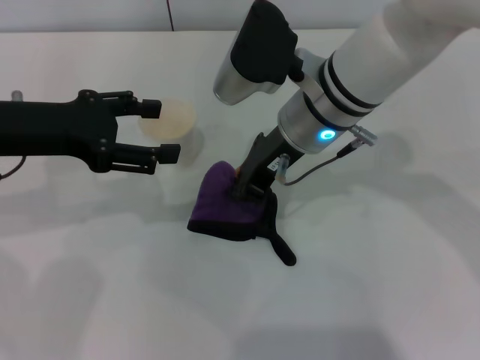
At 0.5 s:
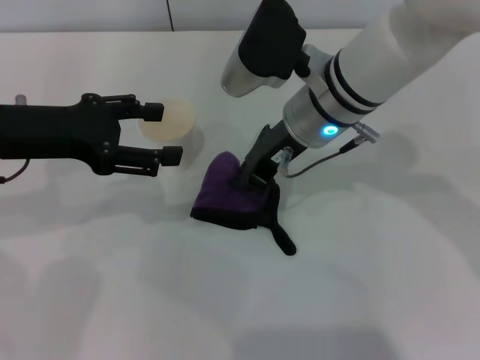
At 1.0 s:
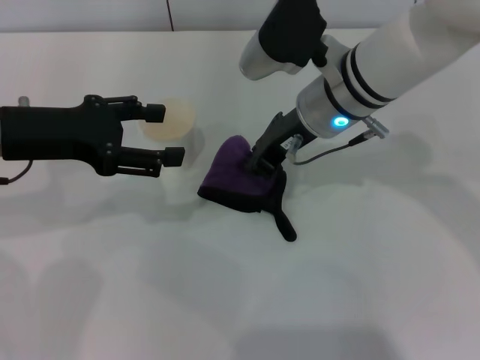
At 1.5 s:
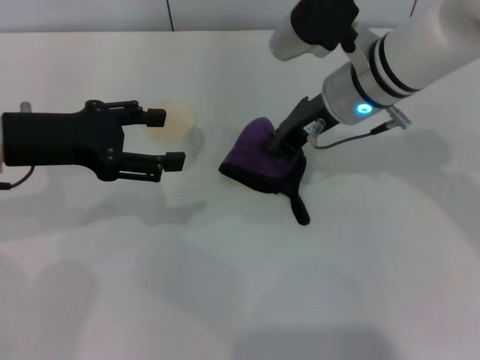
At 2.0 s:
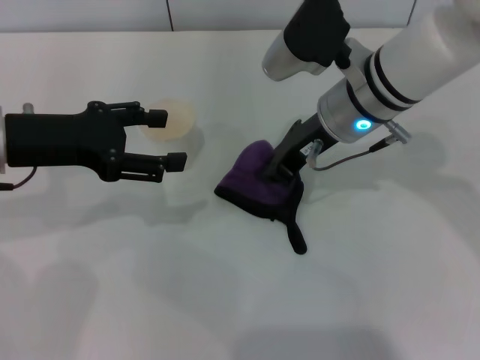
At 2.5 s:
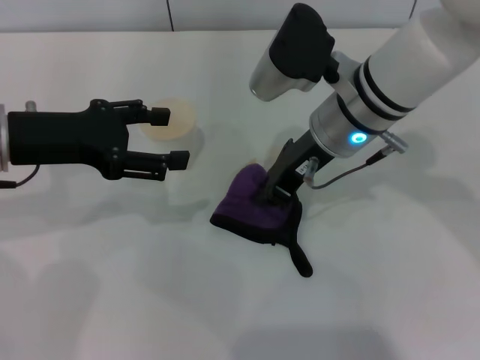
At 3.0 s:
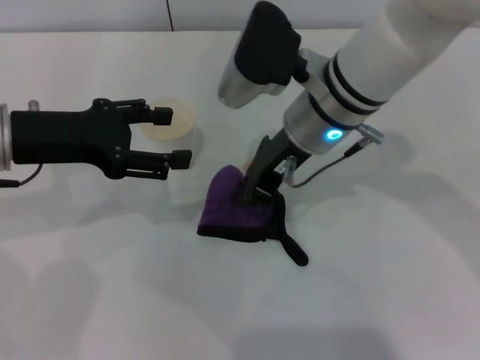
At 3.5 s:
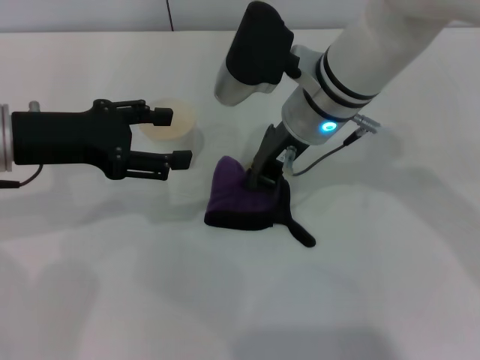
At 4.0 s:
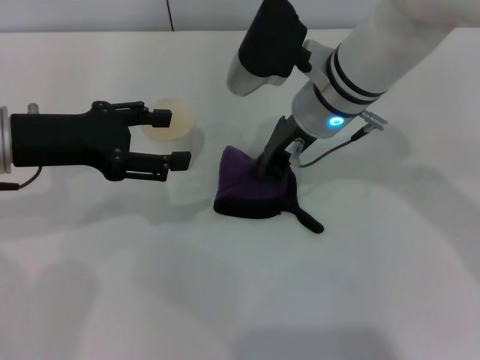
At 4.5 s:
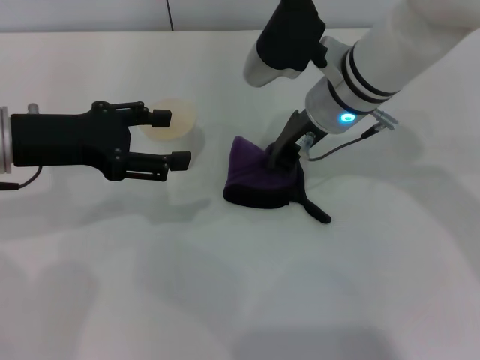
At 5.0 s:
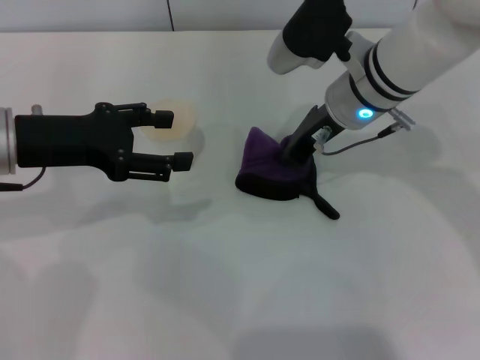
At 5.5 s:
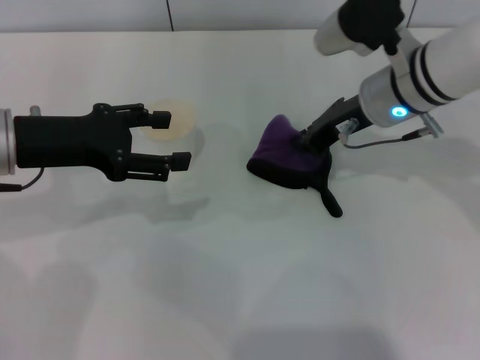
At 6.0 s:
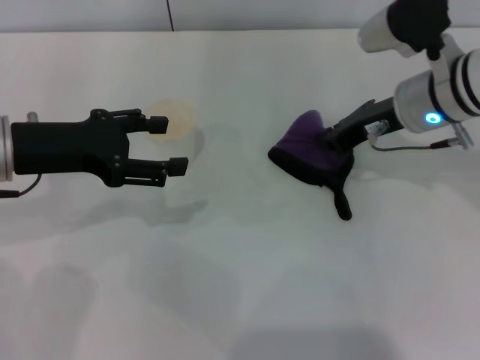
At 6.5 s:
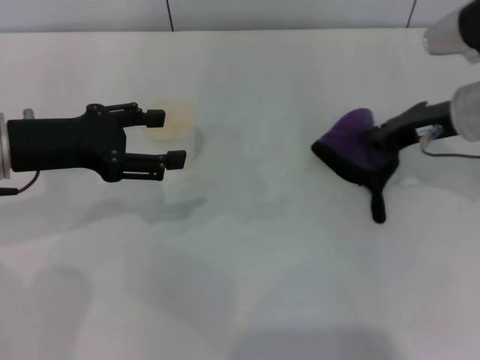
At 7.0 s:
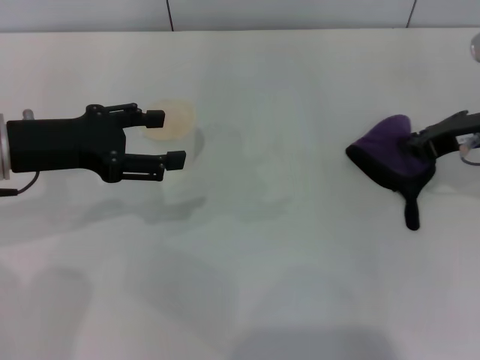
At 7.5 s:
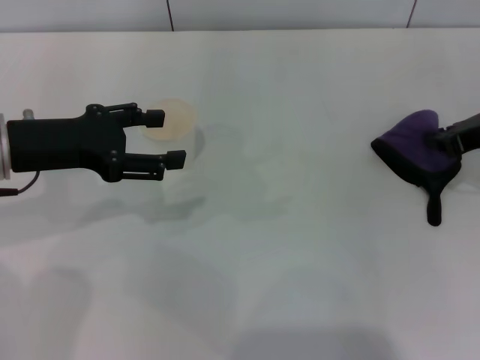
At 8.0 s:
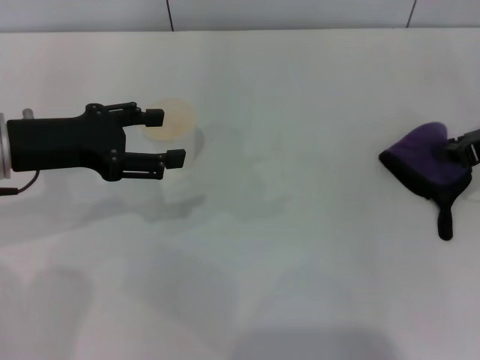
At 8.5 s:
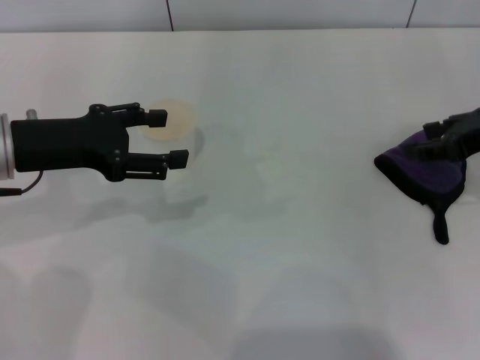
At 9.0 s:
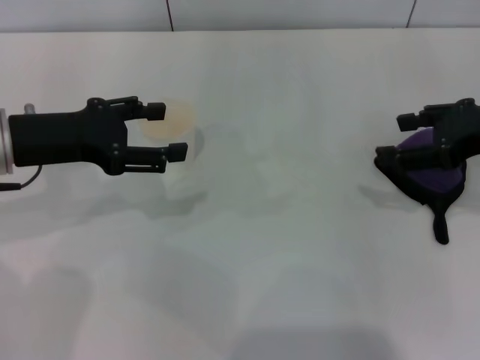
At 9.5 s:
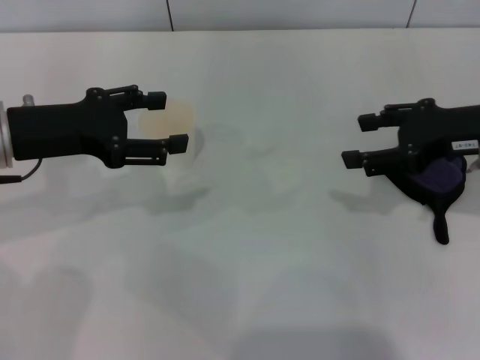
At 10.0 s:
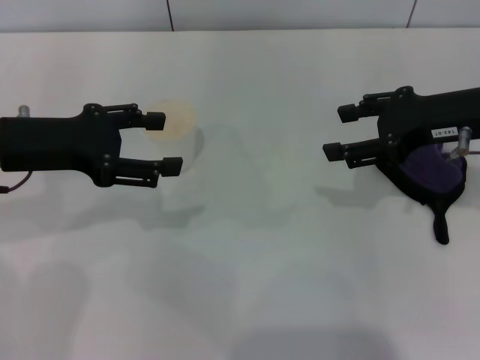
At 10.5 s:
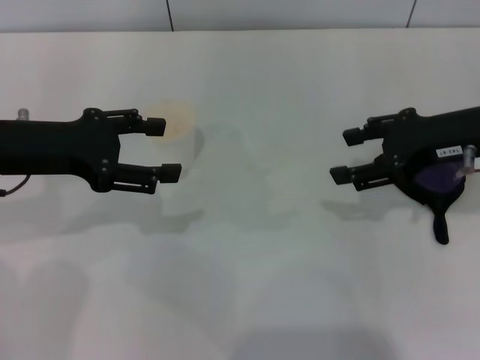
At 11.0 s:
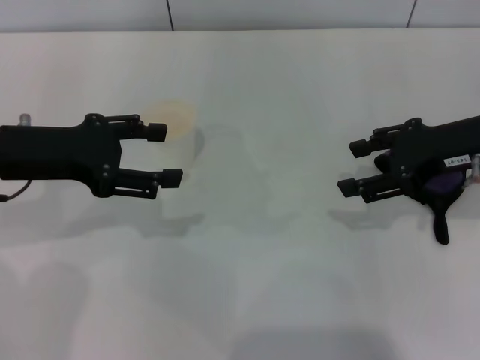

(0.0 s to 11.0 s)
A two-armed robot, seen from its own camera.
Step, 0.0 s - 4.5 s: Wipe the stains off the table with the right gripper.
Step, 5.0 s - 8.5 s: Place the rag on the table with the right gripper.
2.0 s - 3.5 s: The grippers make only small movements.
3.5 s - 5.5 s: The right gripper goes roughly 10 cm to the right.
5.5 s - 7.5 s: The right gripper moves to the right, roughly 15 cm.
7.5 s - 9.0 s: The right gripper shifts by about 5 cm, and opens its fingers.
9.0 s - 11.0 s: The grippers stay close to where they were, moving slightly.

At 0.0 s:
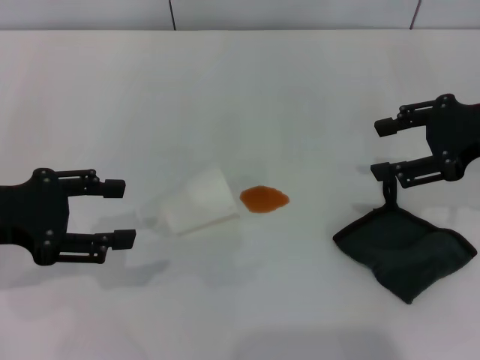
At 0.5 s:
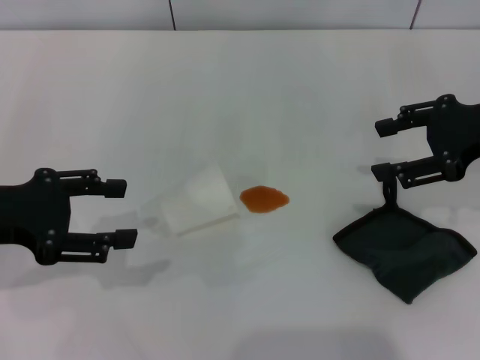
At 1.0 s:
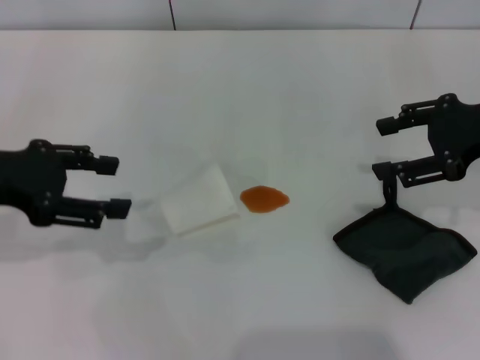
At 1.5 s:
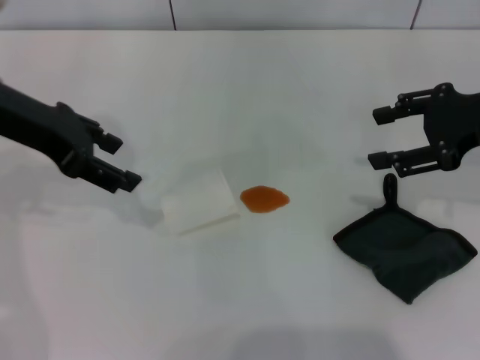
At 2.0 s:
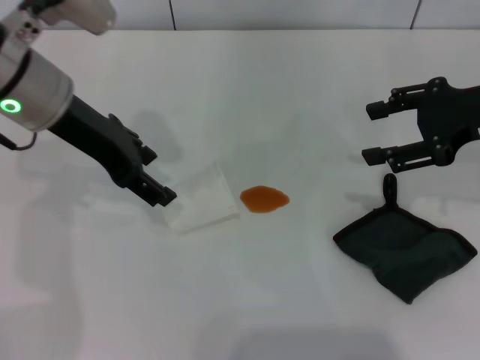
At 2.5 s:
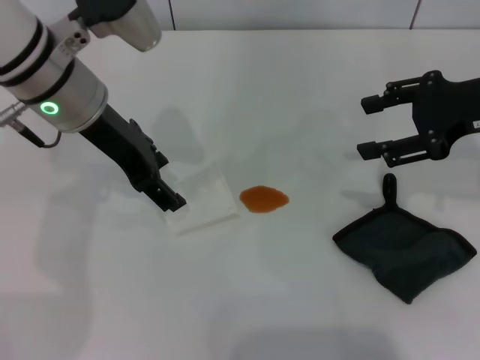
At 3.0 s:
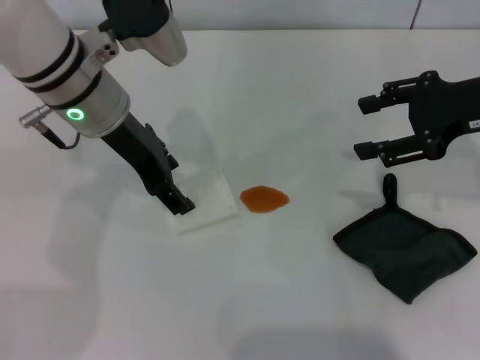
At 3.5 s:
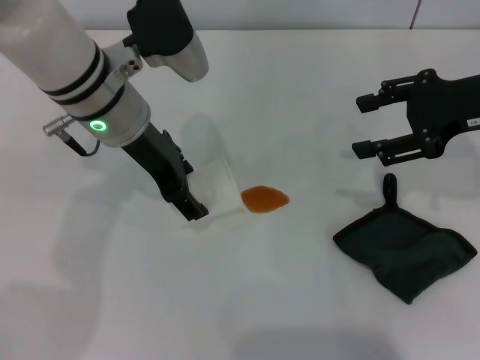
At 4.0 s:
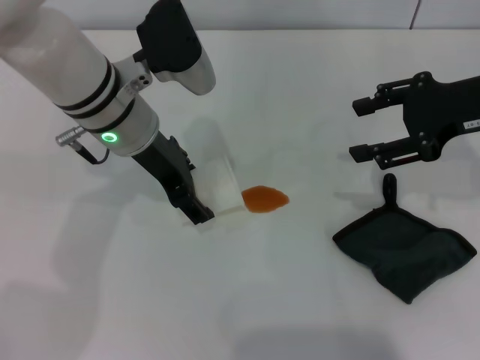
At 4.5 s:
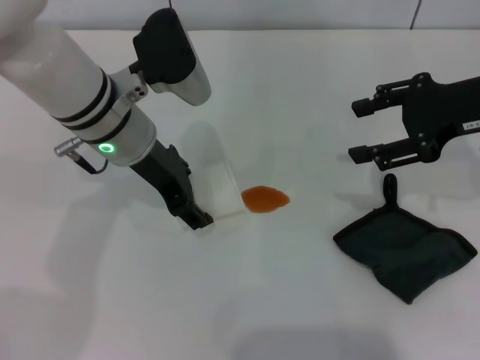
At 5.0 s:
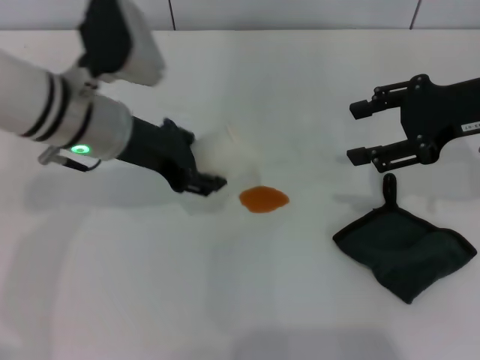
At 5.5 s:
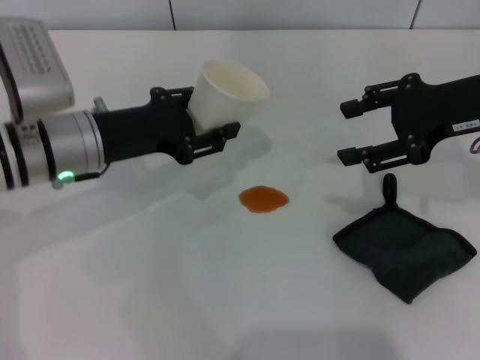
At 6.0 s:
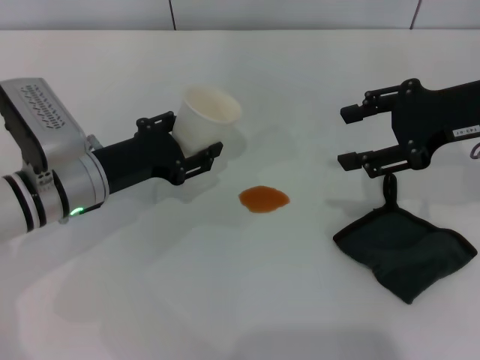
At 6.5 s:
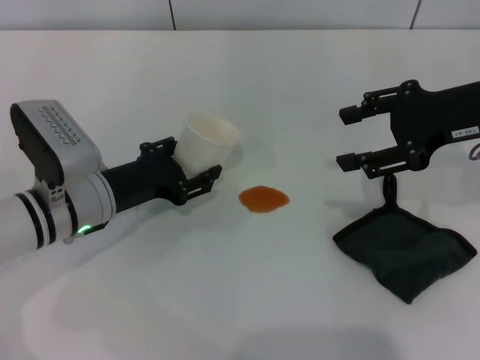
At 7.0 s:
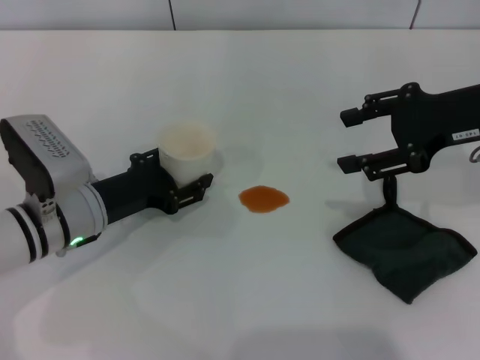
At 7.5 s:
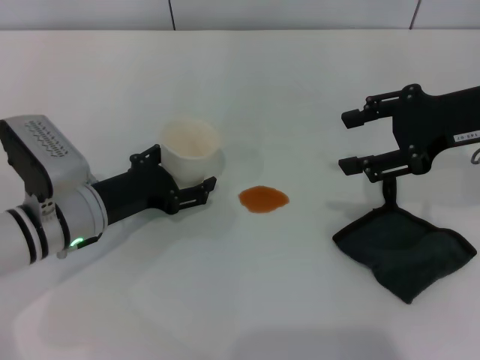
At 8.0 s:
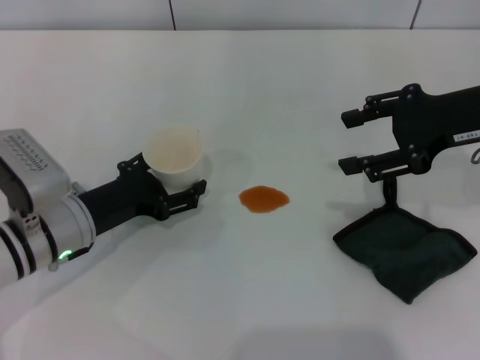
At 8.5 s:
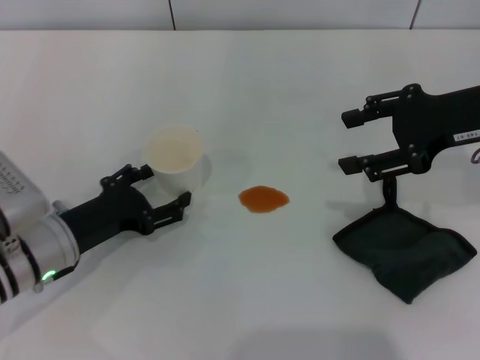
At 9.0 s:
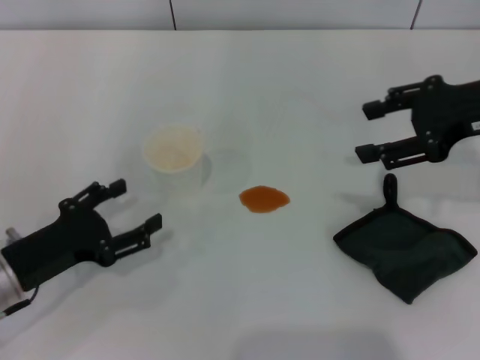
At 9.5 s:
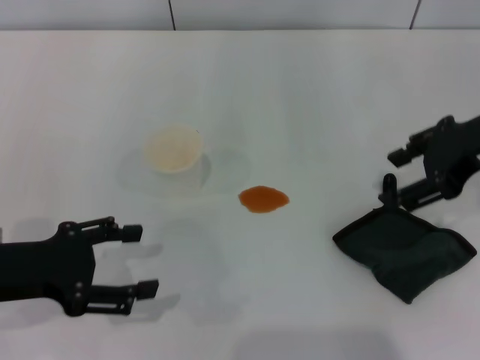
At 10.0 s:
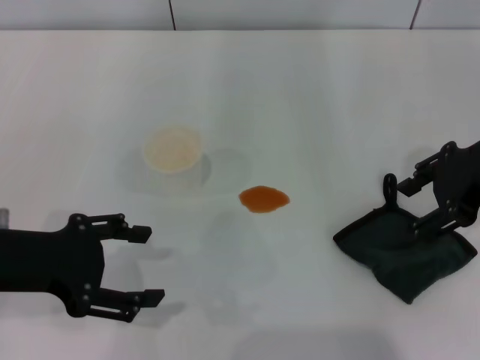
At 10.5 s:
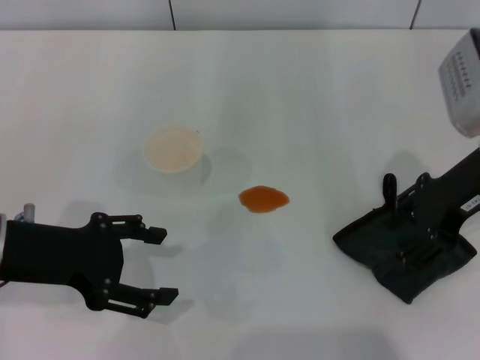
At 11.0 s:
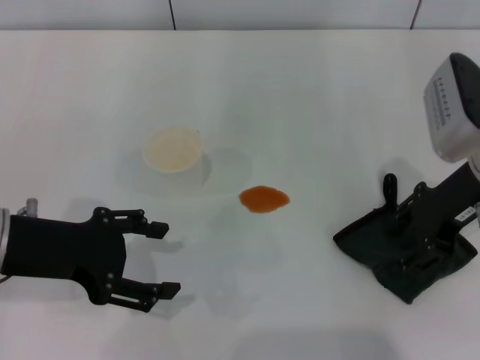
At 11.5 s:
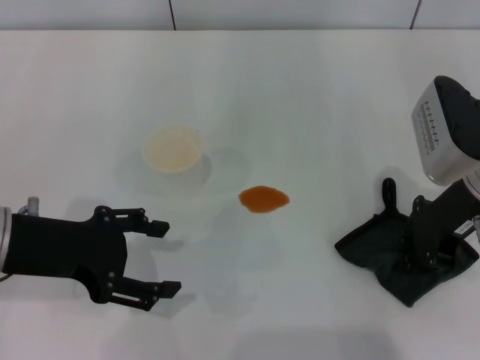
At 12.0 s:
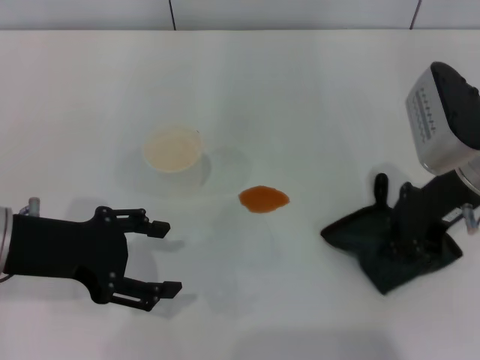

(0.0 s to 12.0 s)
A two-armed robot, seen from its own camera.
Step, 0.0 s - 4.5 s: Grasp the paper cup with the left gripper.
Step, 5.0 s - 8.5 s: Stand the paper cup upright with the left gripper.
Step, 9.0 s - 11.5 s: Grasp the rag with the right gripper.
0.0 s - 2.0 s: The left gripper travels to the right, forward and upward by roughly 15 cm.
2.0 s - 4.0 s: The left gripper goes some 10 cm to the right and downward.
4.0 s - 6.0 s: The left gripper heads downward, to the left and backward, covering roughly 15 cm, and closes its fingers.
6.0 s - 8.0 s: The left gripper opens up.
8.0 s - 10.0 s: The left gripper moves upward and backward, roughly 15 cm.
10.0 s - 12.0 s: The right gripper goes approximately 5 cm downward, and closes up.

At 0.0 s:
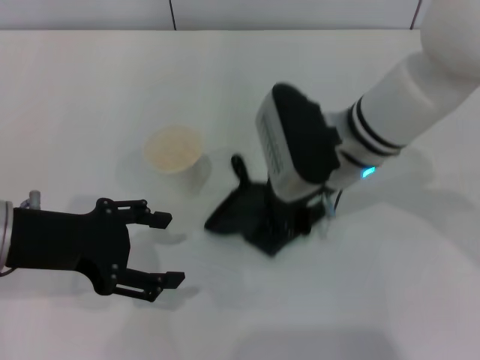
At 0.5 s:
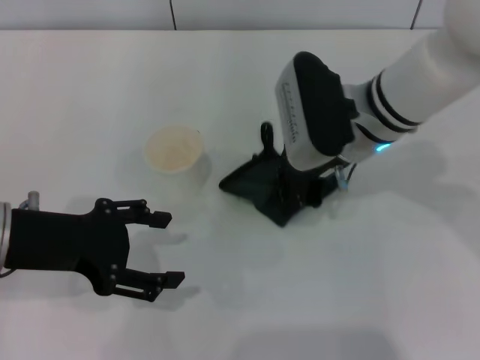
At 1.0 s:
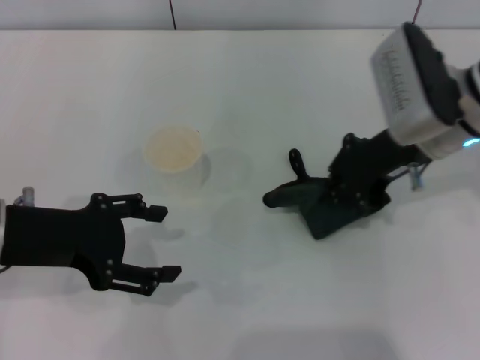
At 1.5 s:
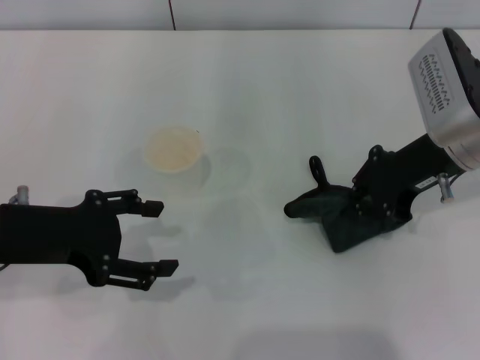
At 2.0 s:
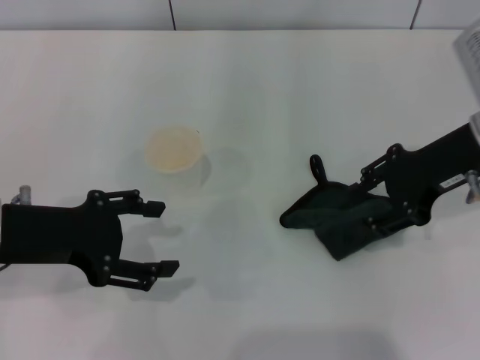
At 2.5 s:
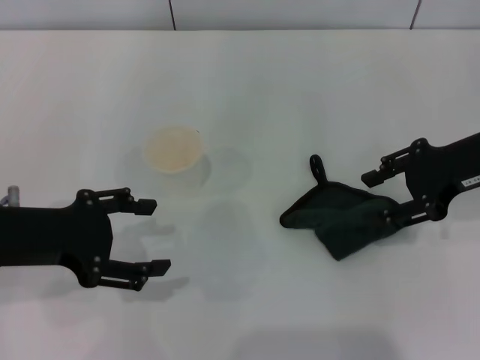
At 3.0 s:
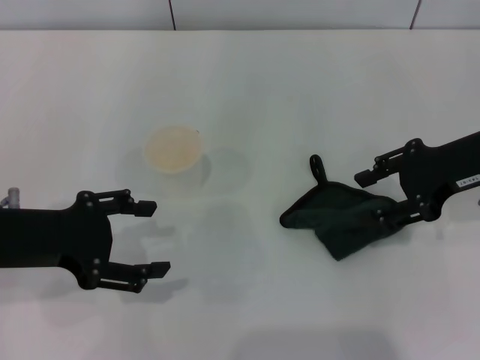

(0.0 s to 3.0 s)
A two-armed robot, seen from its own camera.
Step, 1.5 s - 2.0 s: Place the rag on the table with the right gripper.
0.0 s - 1.5 s: The right gripper is displaced to the right by approximately 10 cm.
1.5 s - 3.0 s: The right gripper is displaced to the right by approximately 5 cm, and opens up.
